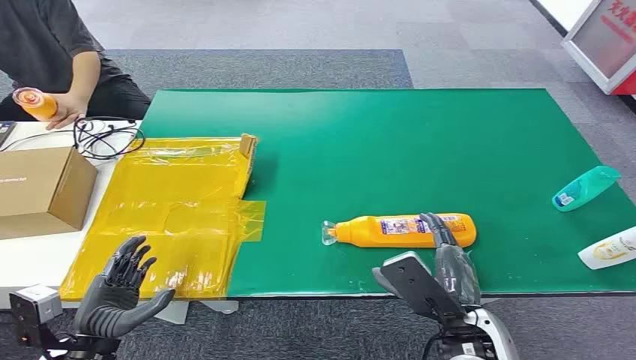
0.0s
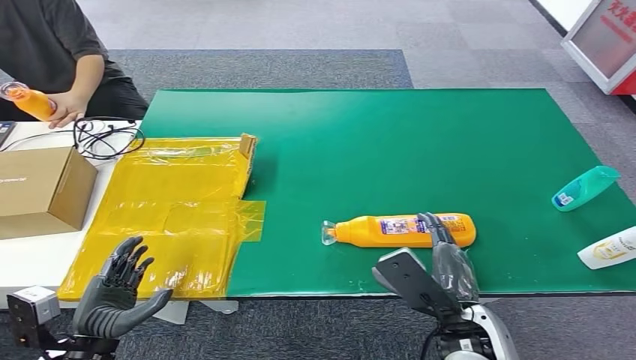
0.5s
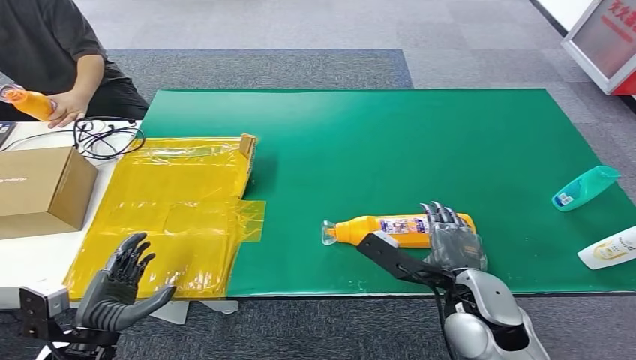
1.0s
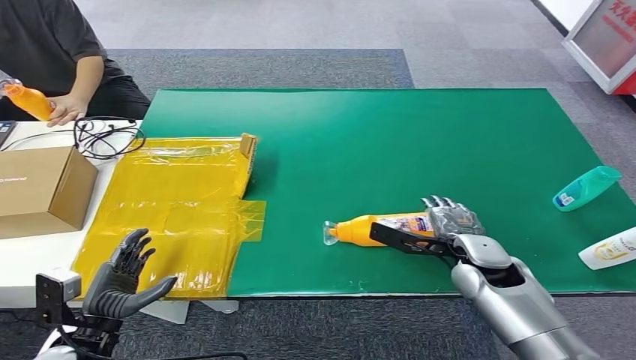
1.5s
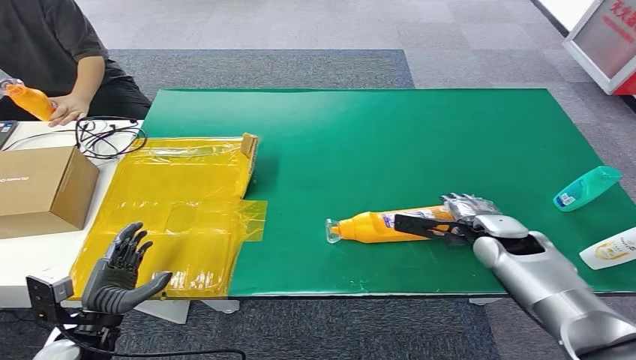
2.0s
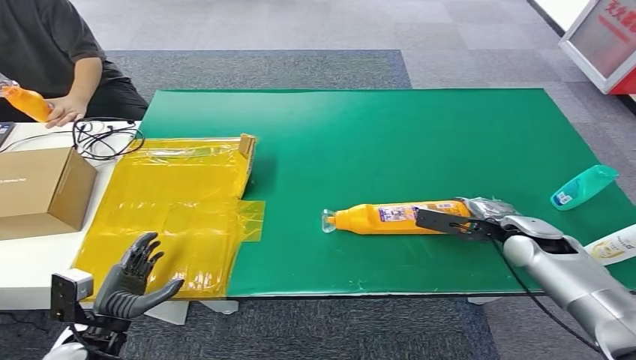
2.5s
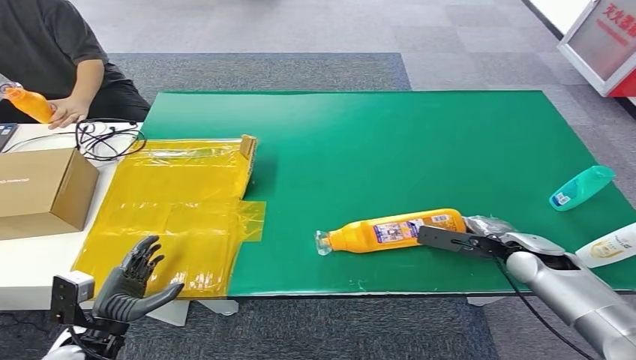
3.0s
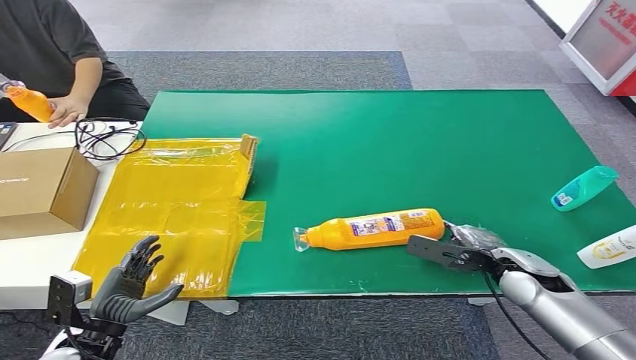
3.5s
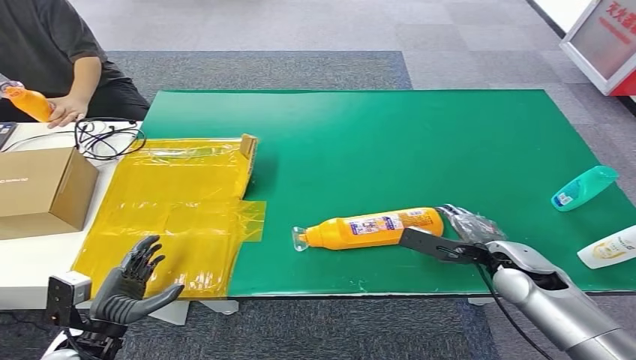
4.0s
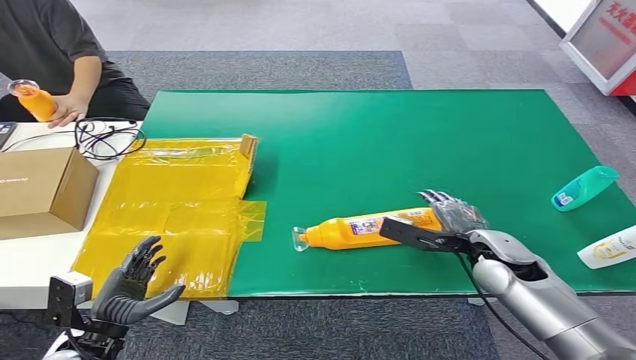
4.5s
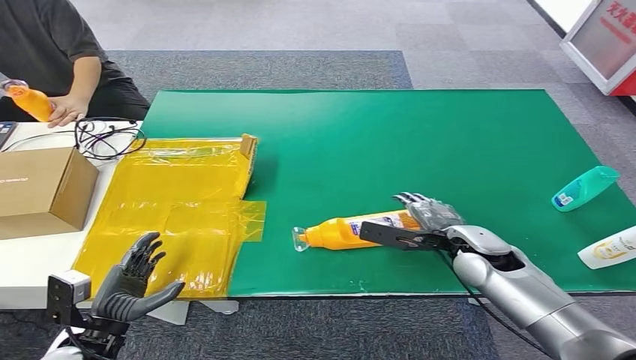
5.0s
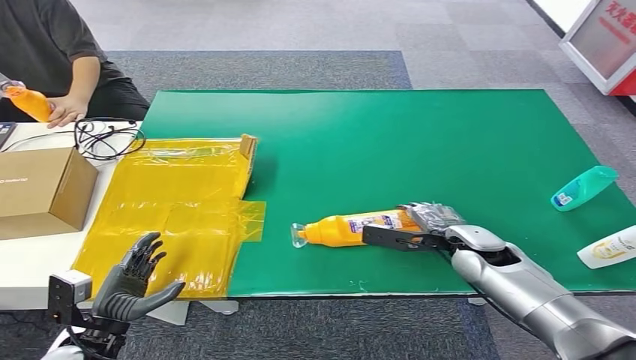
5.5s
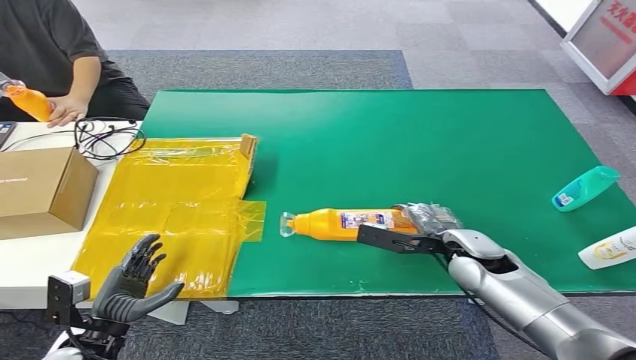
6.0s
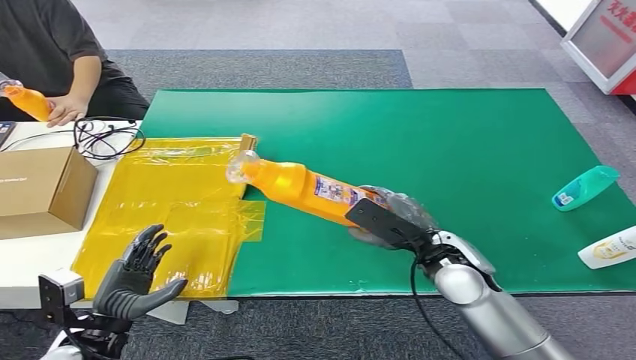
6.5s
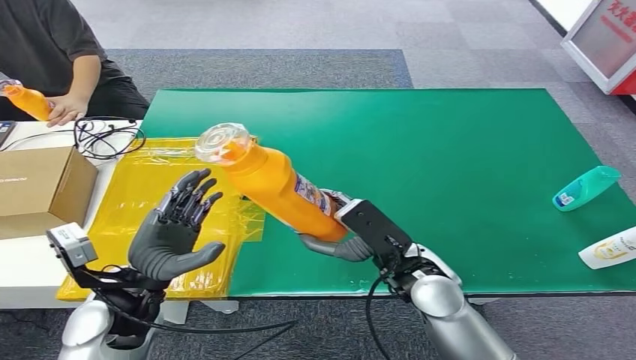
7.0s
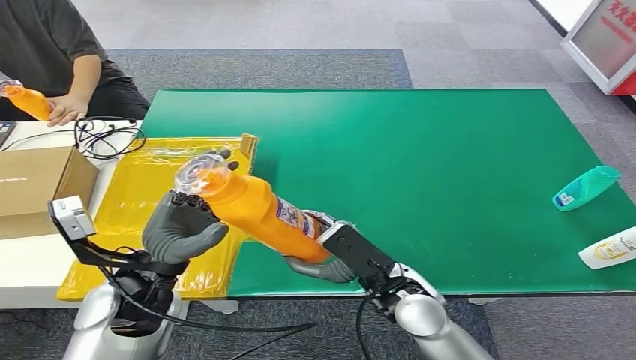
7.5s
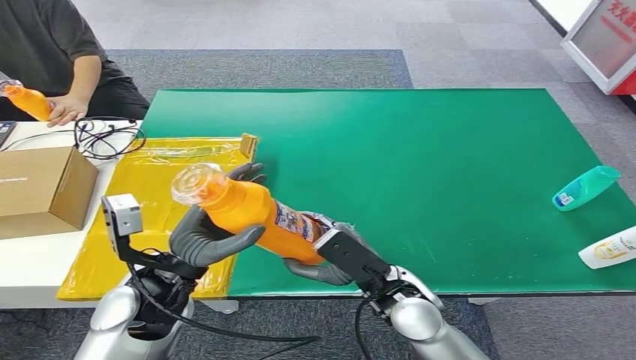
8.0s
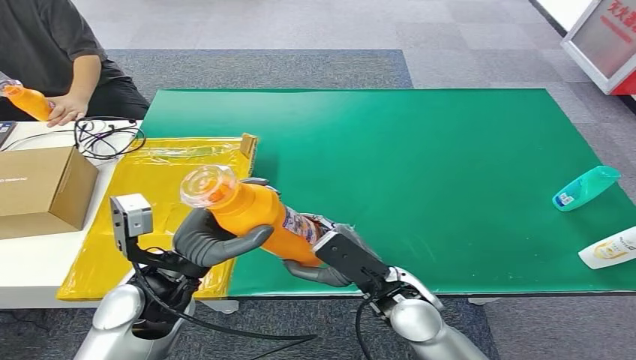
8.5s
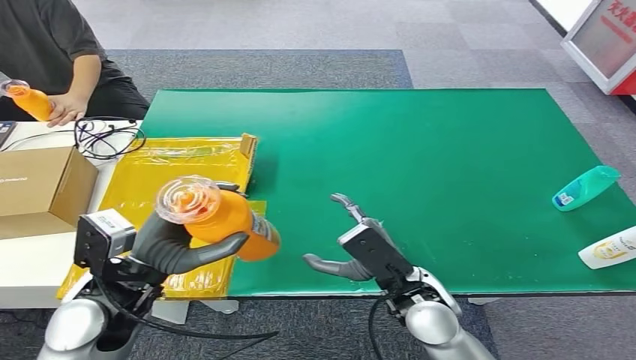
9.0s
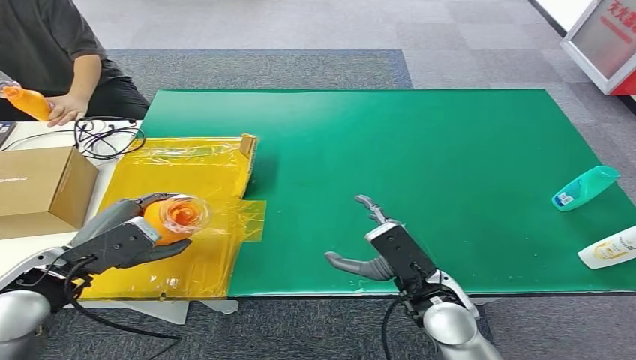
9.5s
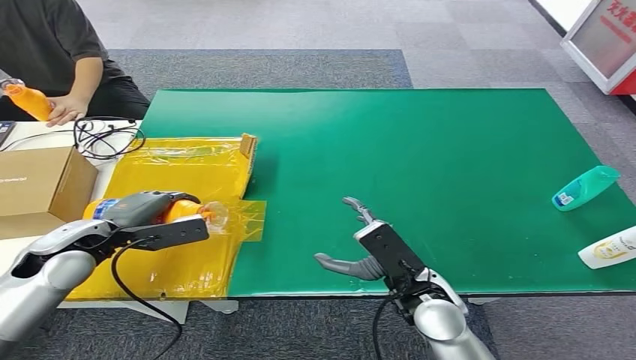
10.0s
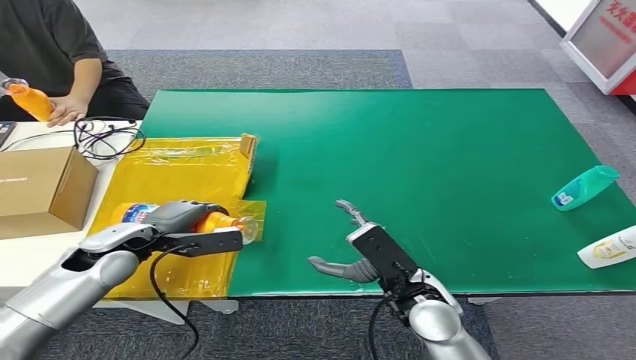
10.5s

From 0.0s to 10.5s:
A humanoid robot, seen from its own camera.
Step, from 0.0s to 7.0s: Pick up the bottle from the table.
Step, from 7.5s to 10.5s: Turn the bottle to the front side.
From 2.0s to 4.0s: The right hand moves backward, approximately 5 cm.
From 4.0s to 6.5s: The right hand goes about 10 cm to the left.
From 6.5s to 8.5s: The right hand is displaced to the left by roughly 10 cm, while the left hand shifts roughly 20 cm forward, upward and to the right.
From 8.5s to 10.5s: The left hand shifts roughly 15 cm to the left and forward.
